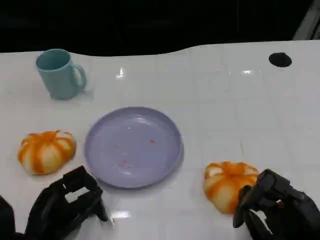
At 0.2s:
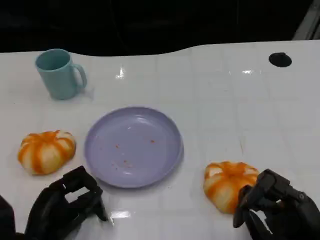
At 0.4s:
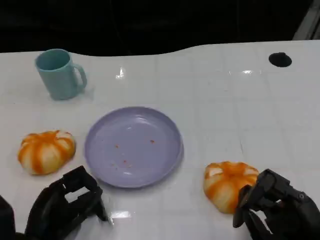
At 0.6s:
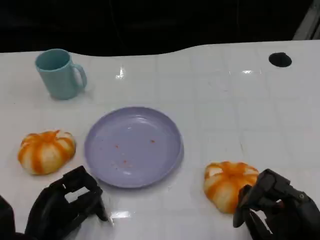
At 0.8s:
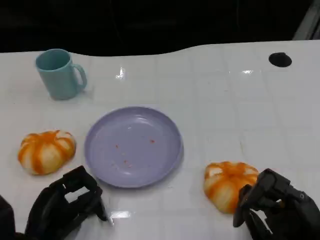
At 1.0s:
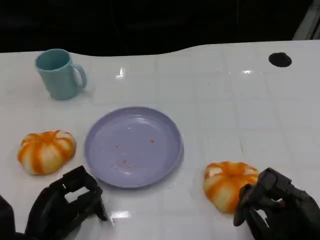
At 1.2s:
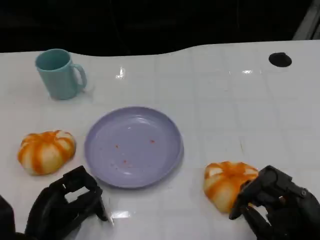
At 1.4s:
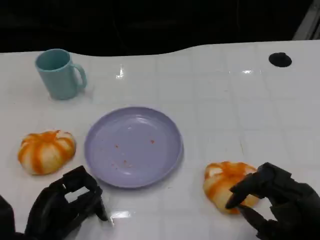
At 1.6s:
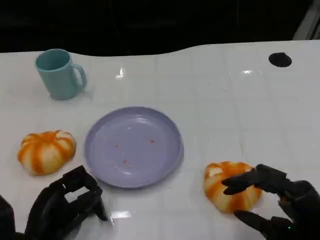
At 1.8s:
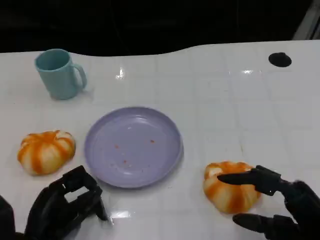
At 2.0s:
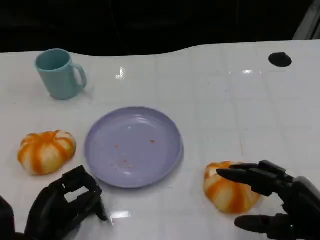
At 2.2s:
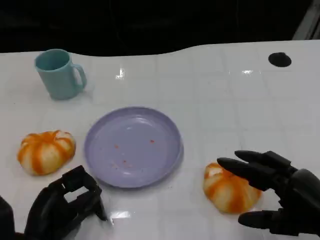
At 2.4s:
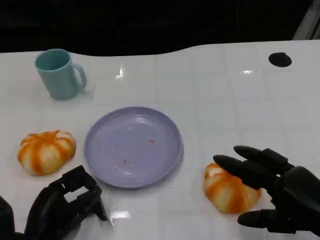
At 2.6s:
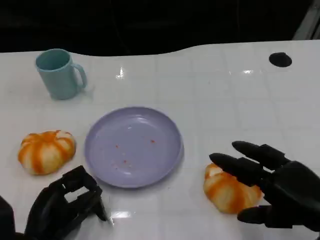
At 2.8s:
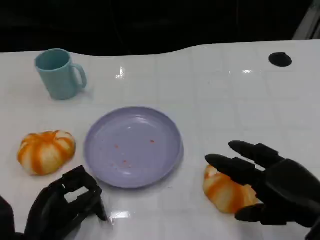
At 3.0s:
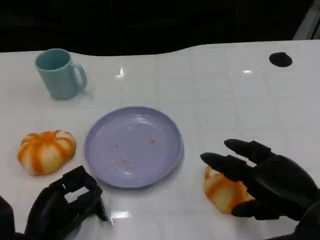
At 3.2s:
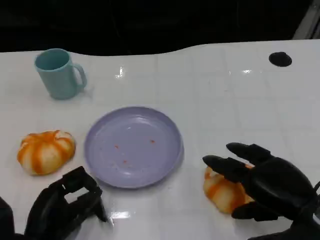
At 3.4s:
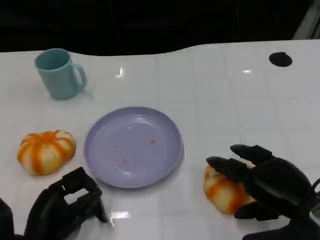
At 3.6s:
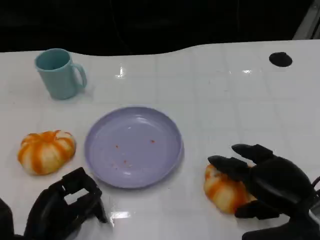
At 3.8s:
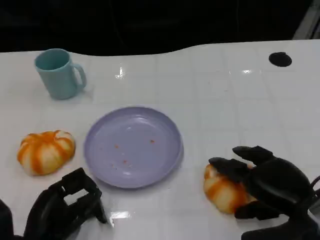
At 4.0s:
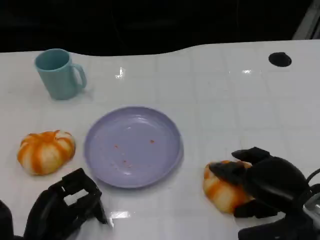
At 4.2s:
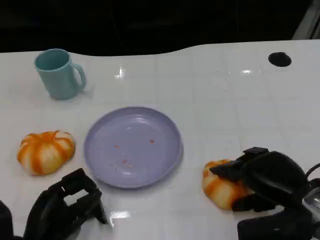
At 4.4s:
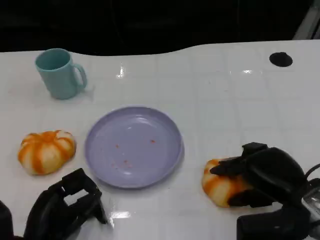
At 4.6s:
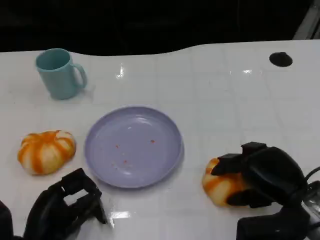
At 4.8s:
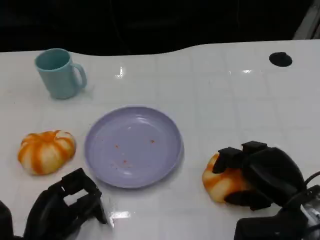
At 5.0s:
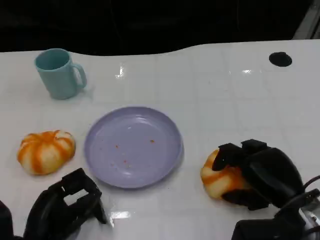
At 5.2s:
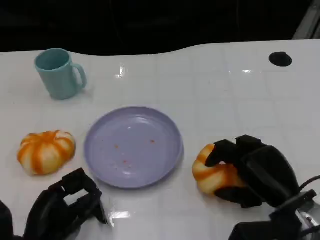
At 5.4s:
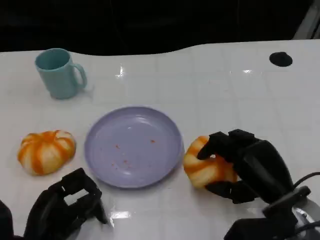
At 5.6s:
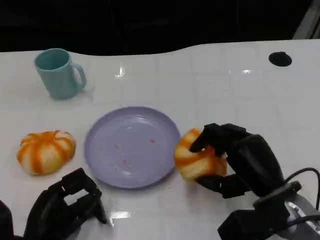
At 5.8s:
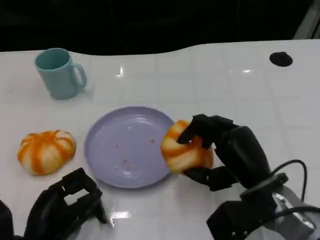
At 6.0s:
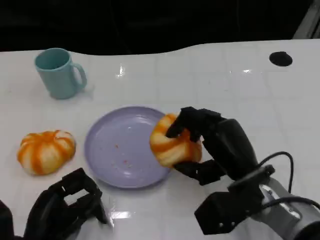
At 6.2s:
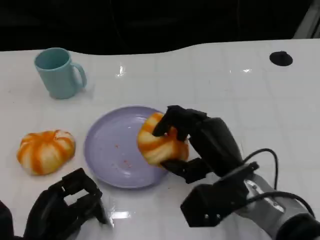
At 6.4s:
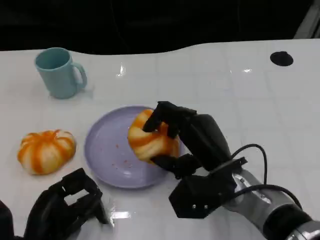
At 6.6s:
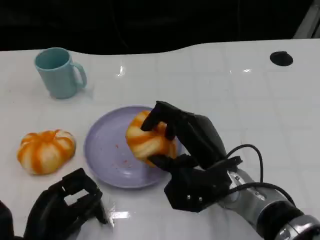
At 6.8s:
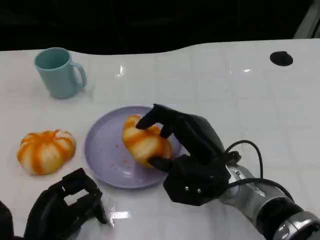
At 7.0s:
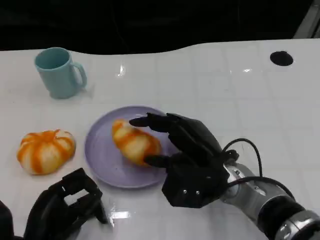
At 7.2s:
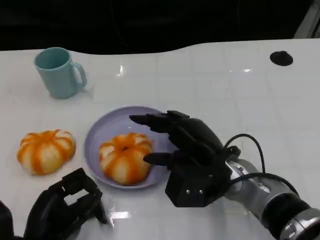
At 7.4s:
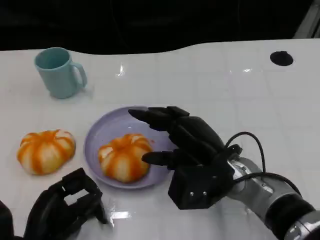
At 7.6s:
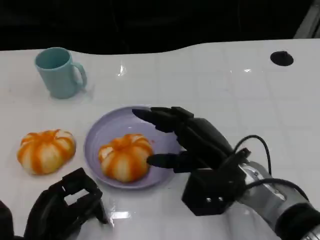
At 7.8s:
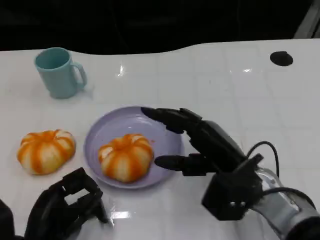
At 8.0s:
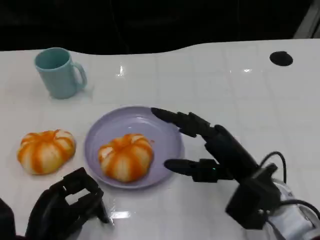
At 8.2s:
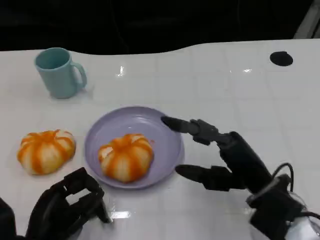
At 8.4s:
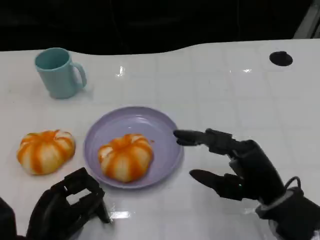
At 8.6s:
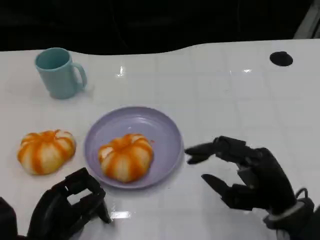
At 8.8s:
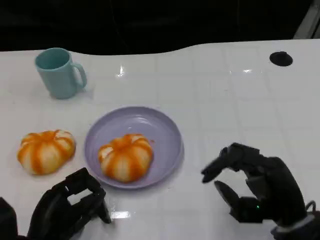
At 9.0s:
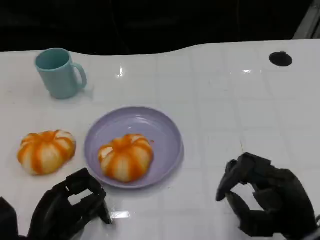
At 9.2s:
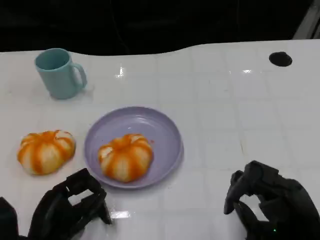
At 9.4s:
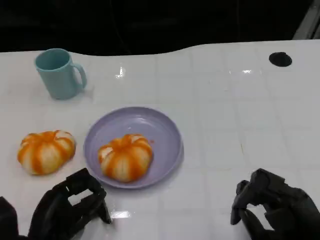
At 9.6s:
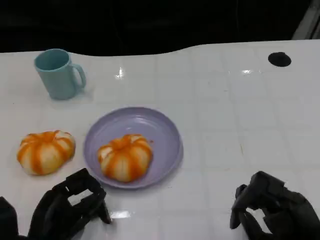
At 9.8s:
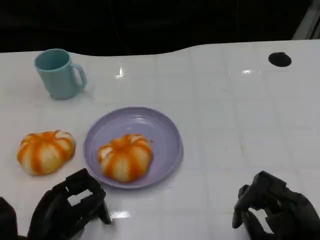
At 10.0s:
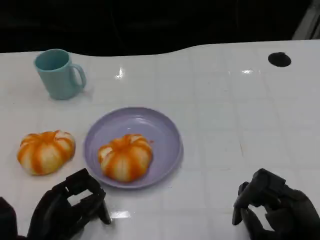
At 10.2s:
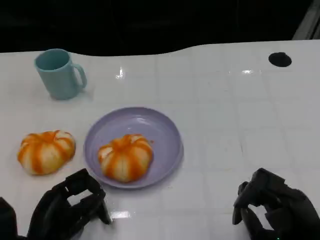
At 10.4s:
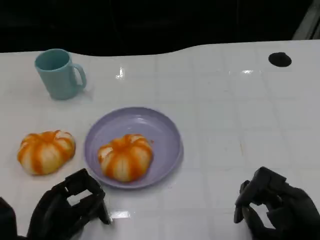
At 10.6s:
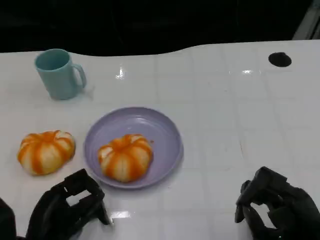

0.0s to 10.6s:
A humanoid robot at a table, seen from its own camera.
Task of the whole recording: Grasp the bread from the table and place it into the plate.
1.6s to 3.0s: The right hand shifts by approximately 5 cm.
3.0s to 4.6s: The right hand changes place by roughly 5 cm.
4.6s to 6.0s: The right hand heads to the left, covering roughly 10 cm.
7.6s to 9.0s: The right hand shifts about 15 cm backward and to the right.
9.0s to 10.6s: The hands move only a little.

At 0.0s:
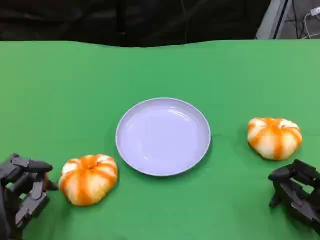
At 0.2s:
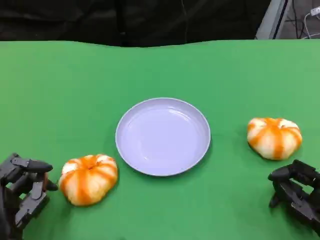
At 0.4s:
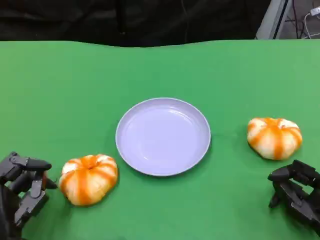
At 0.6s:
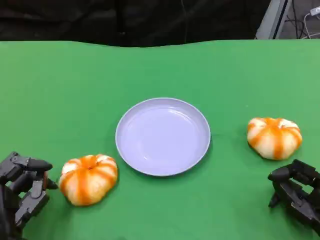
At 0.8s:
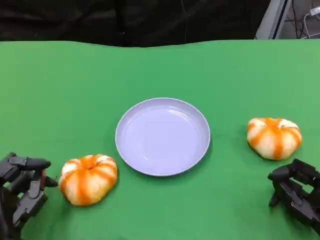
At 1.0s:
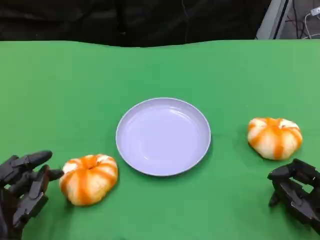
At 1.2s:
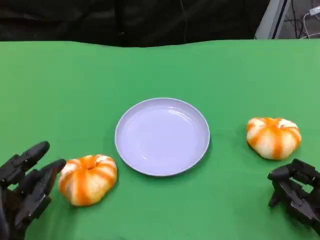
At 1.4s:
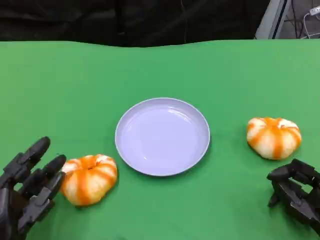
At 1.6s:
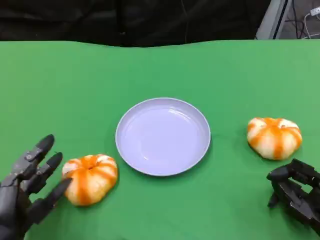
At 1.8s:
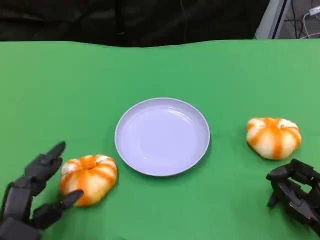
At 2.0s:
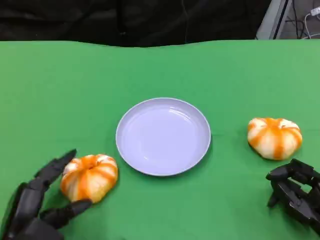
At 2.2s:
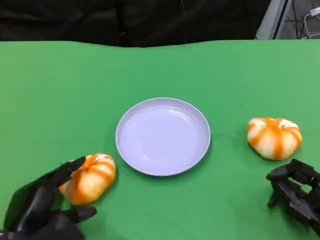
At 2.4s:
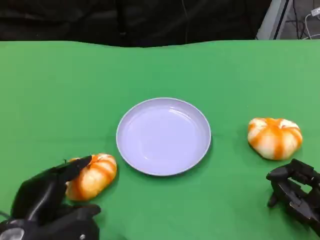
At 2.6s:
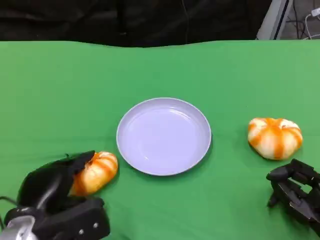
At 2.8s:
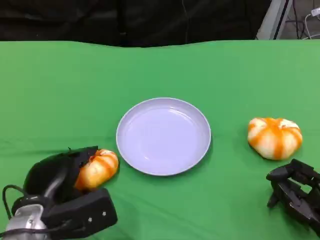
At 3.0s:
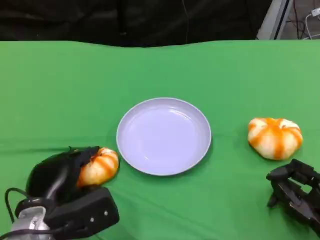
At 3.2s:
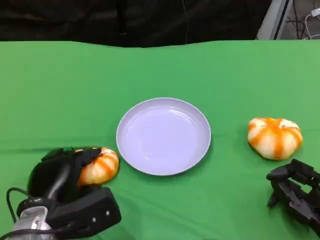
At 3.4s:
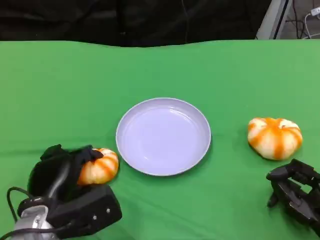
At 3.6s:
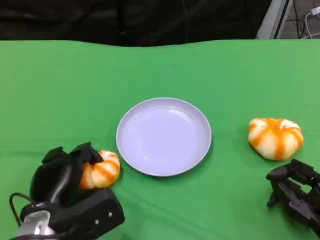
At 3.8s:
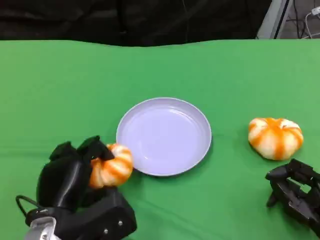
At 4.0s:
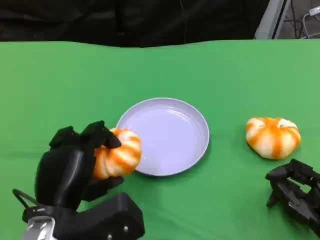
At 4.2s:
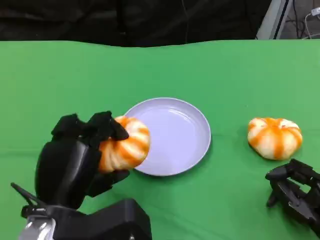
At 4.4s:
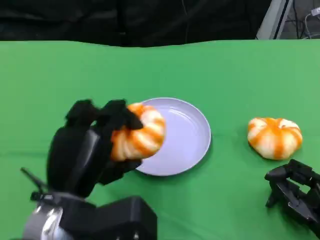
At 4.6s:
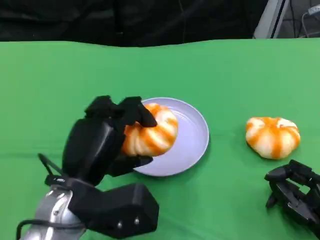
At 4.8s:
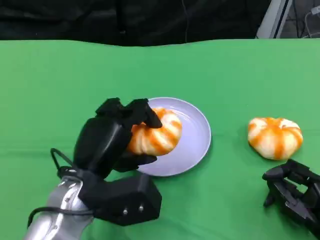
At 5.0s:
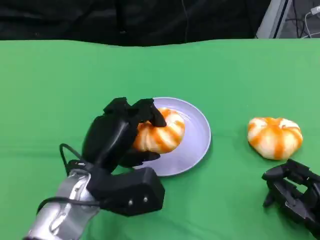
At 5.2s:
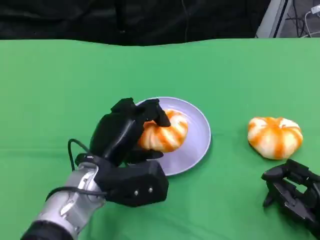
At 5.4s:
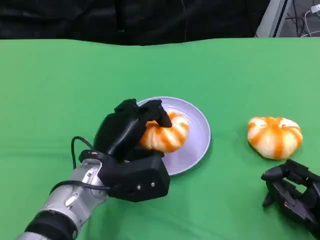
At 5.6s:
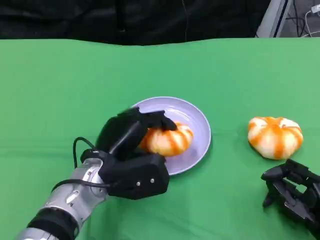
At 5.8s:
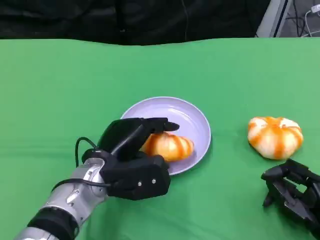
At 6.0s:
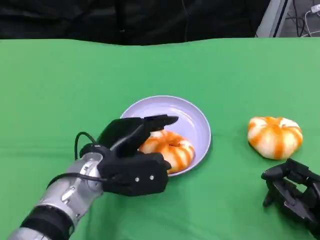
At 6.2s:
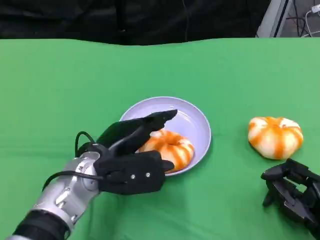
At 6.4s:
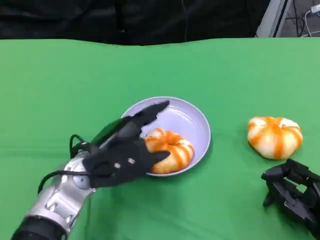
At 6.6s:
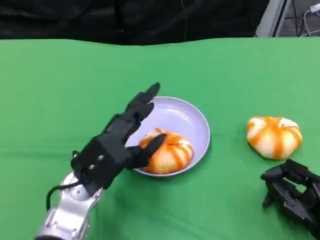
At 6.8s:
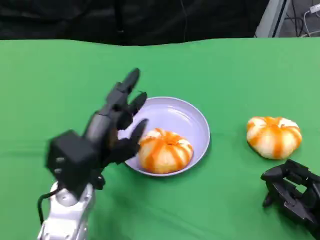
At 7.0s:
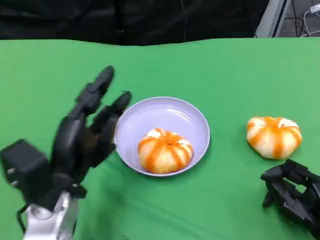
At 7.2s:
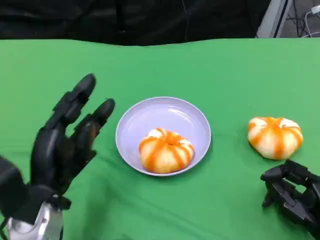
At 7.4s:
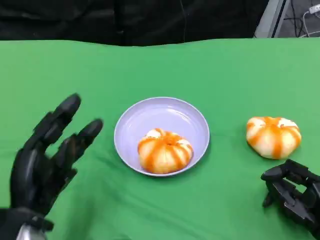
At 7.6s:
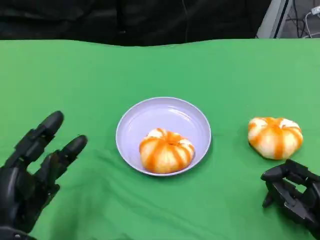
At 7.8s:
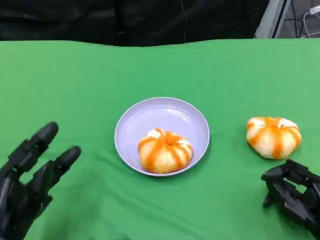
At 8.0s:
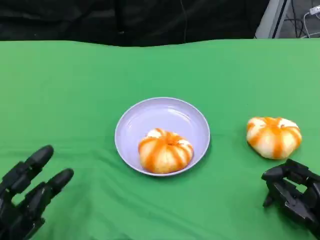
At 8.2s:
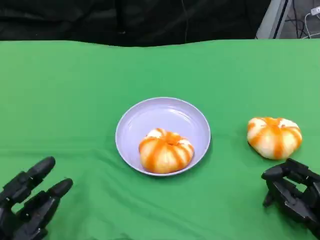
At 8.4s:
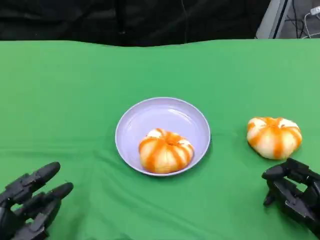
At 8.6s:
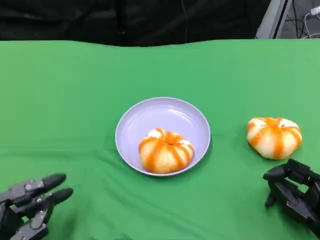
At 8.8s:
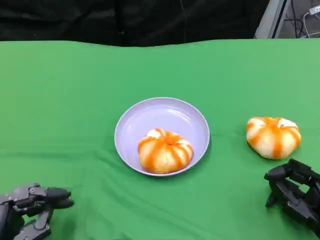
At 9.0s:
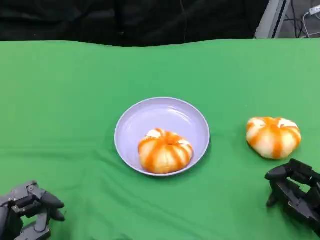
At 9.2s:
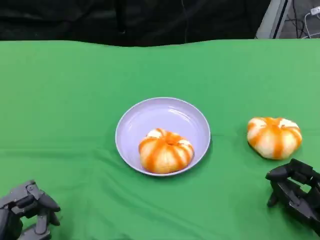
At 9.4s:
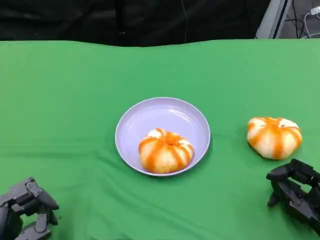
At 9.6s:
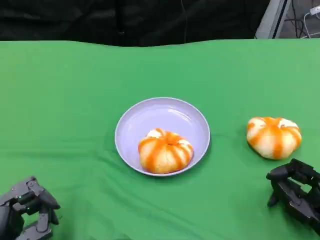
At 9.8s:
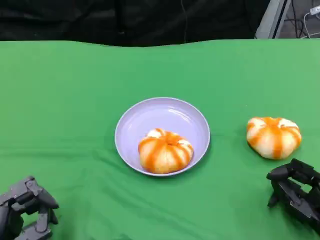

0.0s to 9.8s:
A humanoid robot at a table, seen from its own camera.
Task of the whole recording: Grasp the bread from the table and place it into the plate.
0.0s to 1.4s: The hands make only small movements.
1.4s to 2.8s: The left hand is displaced forward by approximately 5 cm.
2.8s to 4.2s: The left hand heads upward, covering about 10 cm.
4.2s to 5.6s: The left hand heads forward, downward and to the right, covering roughly 10 cm.
5.6s to 7.0s: The left hand heads to the left, covering about 5 cm.
7.0s to 8.4s: The left hand shifts roughly 15 cm backward, to the left and downward.
8.4s to 9.8s: There are only small adjustments of the hands.

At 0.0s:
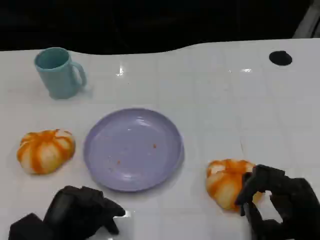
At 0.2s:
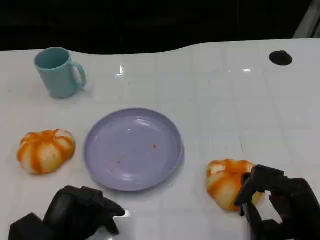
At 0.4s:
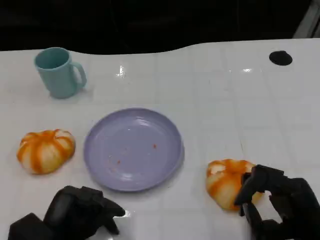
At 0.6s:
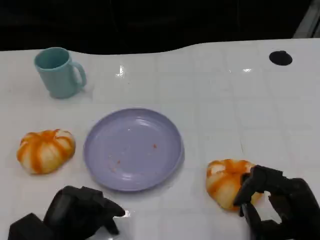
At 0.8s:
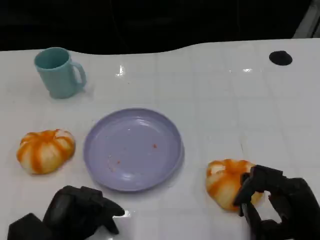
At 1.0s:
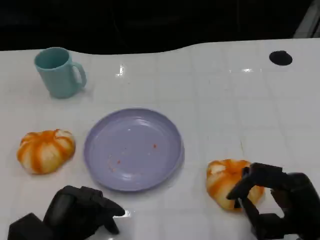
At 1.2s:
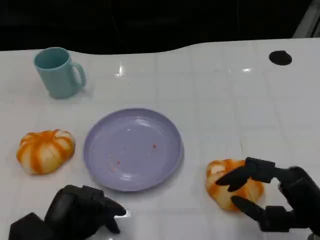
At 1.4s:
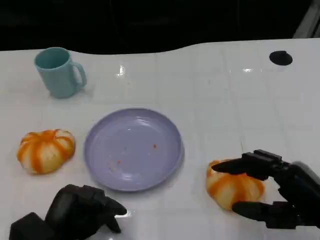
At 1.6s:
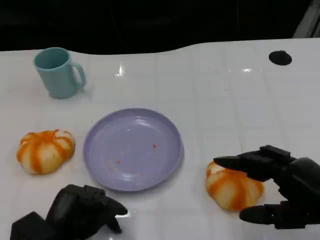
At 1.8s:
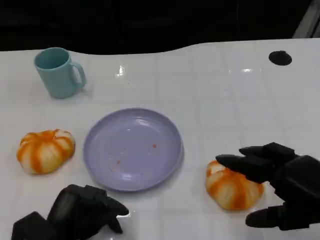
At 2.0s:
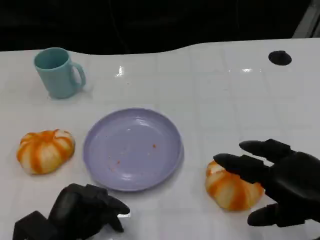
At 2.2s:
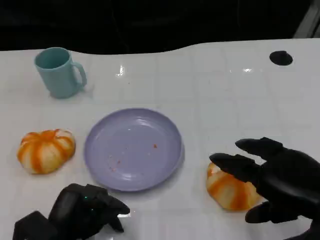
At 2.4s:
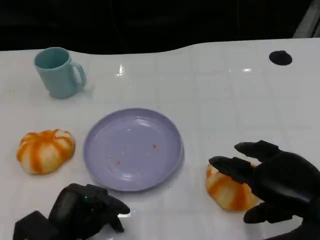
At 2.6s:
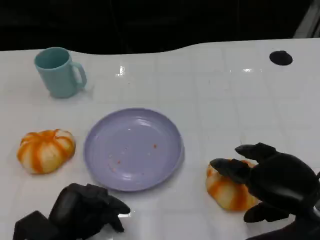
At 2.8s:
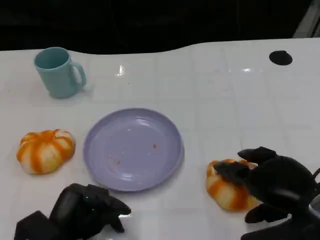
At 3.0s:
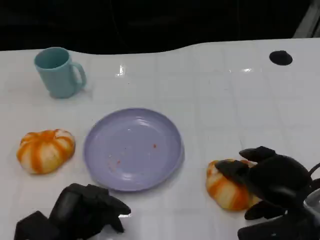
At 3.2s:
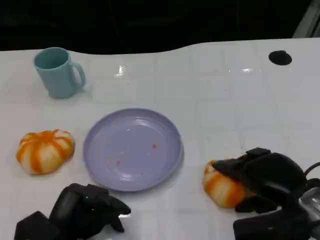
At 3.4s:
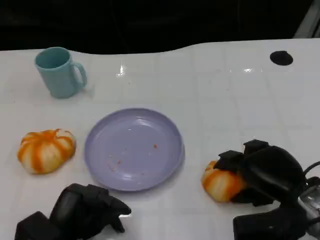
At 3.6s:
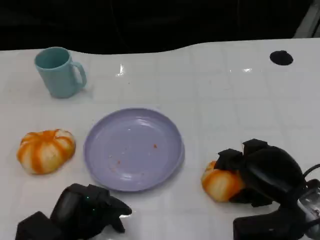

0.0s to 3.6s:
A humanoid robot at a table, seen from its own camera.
Task of the whole recording: Grasp the bread from the table and place it into the plate.
0.0s to 1.8s: The right hand is displaced upward by about 10 cm.
1.8s to 3.6s: The right hand shifts approximately 10 cm downward and forward.
